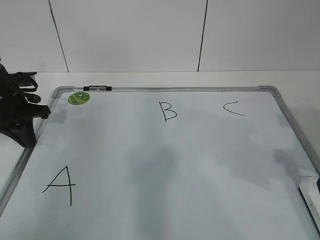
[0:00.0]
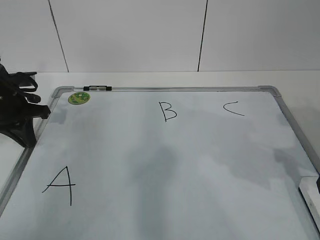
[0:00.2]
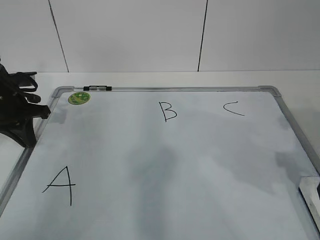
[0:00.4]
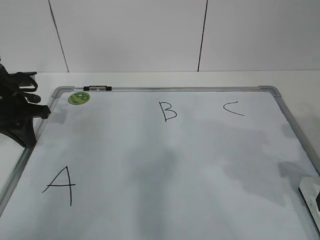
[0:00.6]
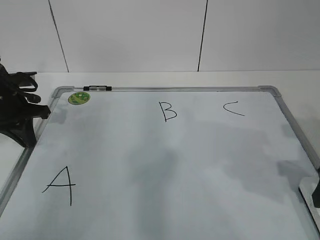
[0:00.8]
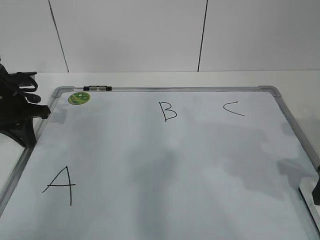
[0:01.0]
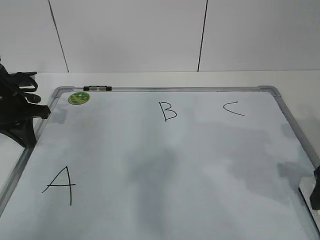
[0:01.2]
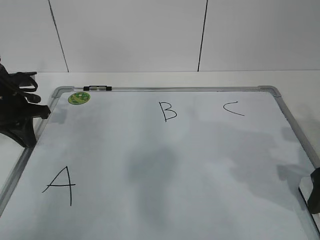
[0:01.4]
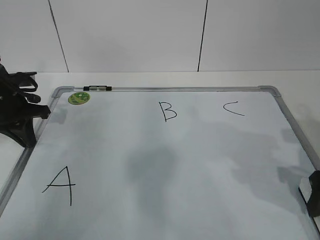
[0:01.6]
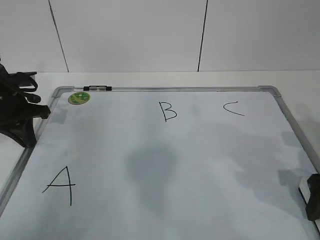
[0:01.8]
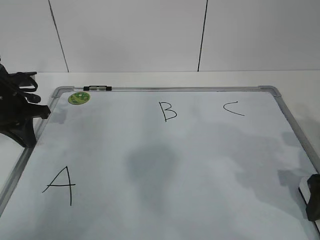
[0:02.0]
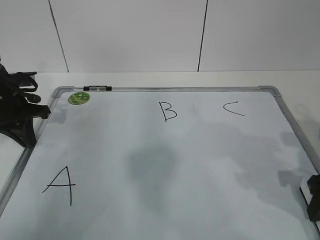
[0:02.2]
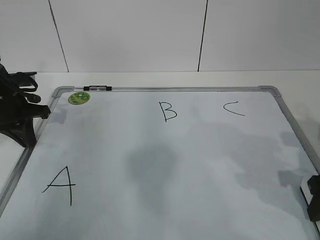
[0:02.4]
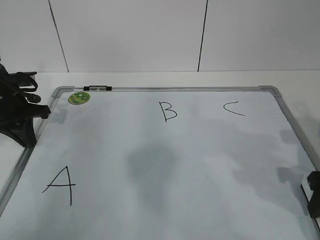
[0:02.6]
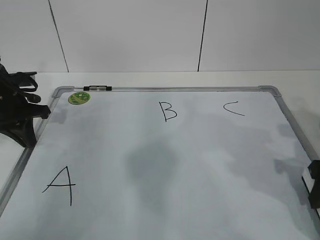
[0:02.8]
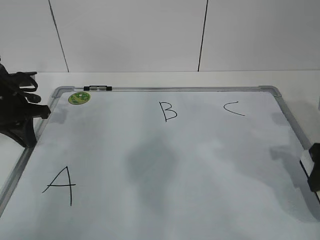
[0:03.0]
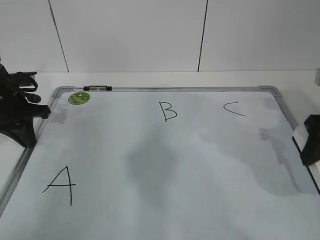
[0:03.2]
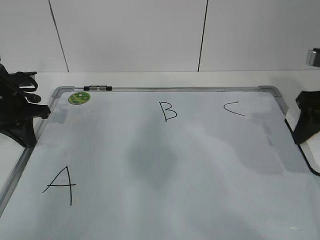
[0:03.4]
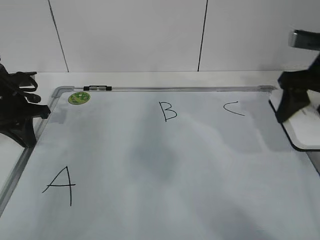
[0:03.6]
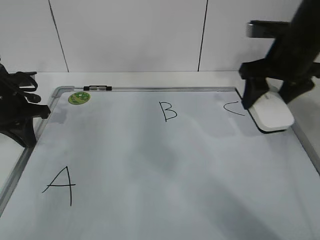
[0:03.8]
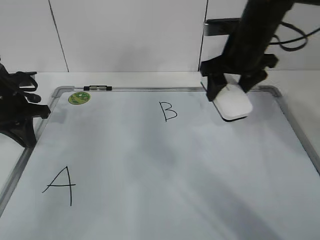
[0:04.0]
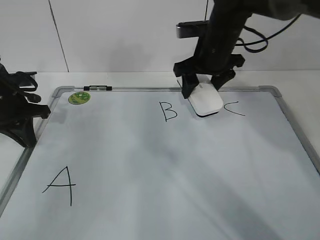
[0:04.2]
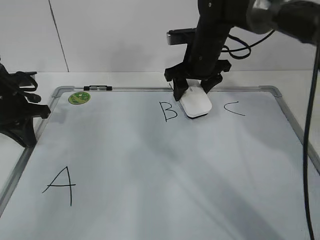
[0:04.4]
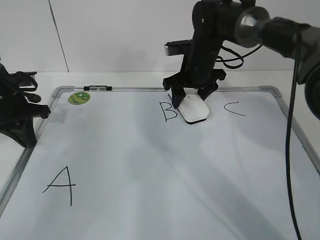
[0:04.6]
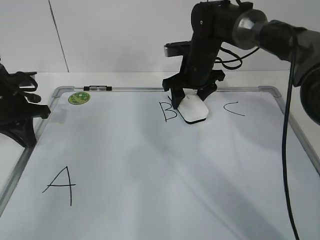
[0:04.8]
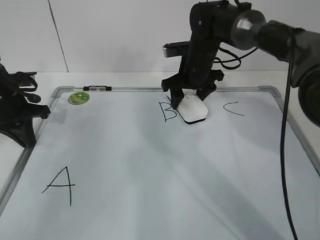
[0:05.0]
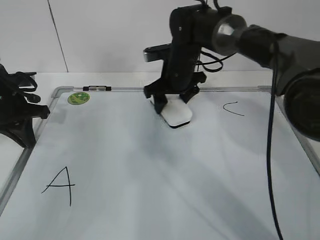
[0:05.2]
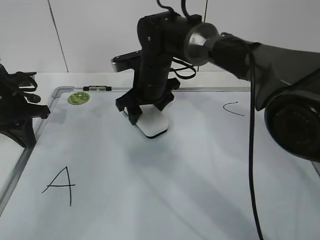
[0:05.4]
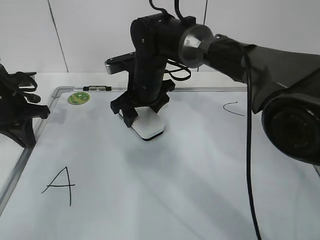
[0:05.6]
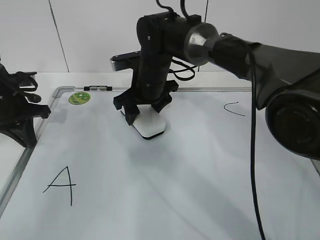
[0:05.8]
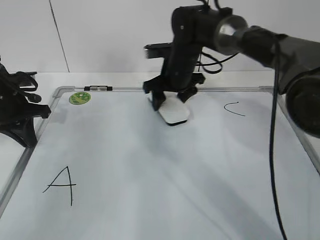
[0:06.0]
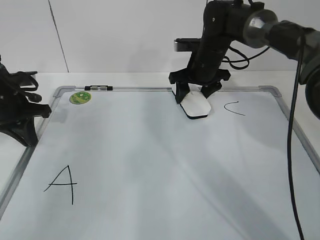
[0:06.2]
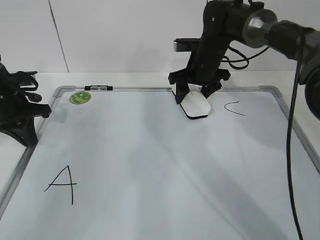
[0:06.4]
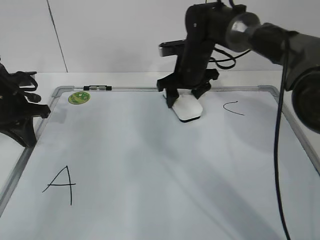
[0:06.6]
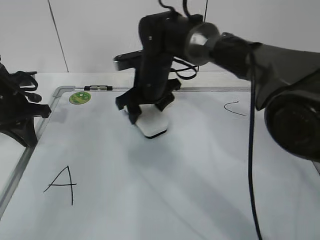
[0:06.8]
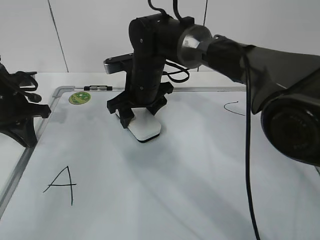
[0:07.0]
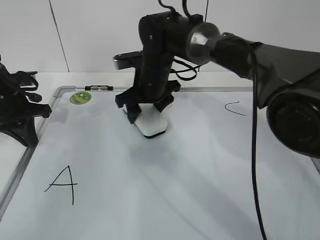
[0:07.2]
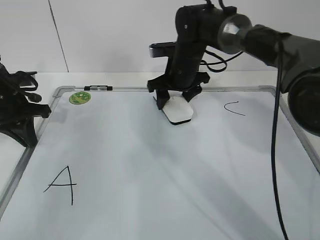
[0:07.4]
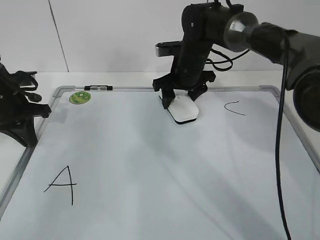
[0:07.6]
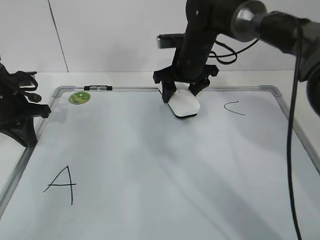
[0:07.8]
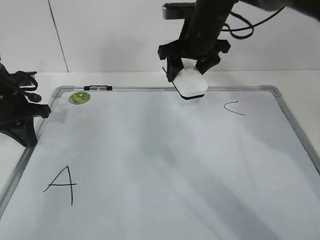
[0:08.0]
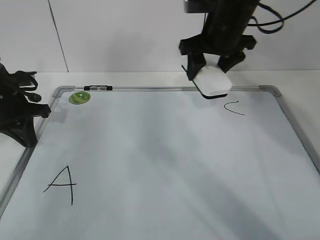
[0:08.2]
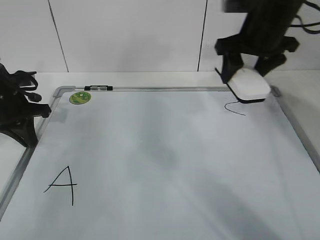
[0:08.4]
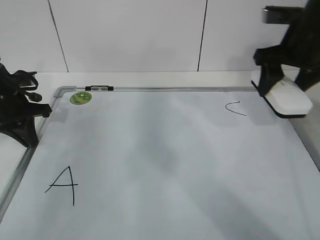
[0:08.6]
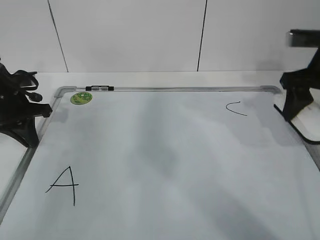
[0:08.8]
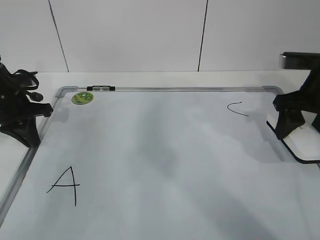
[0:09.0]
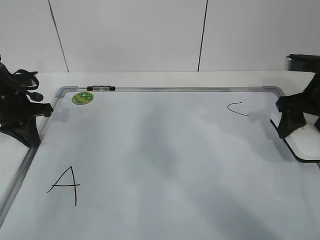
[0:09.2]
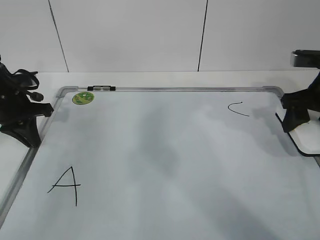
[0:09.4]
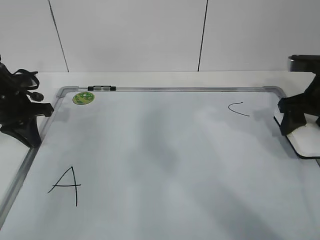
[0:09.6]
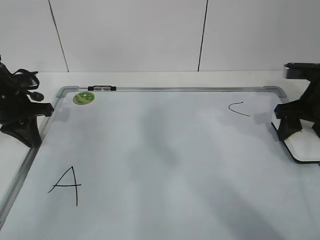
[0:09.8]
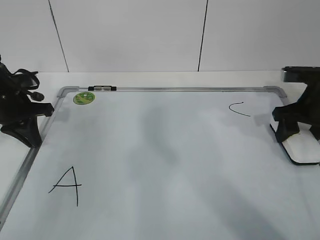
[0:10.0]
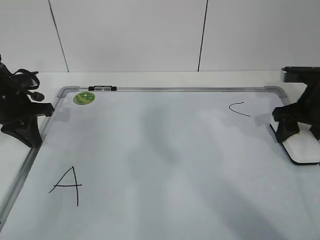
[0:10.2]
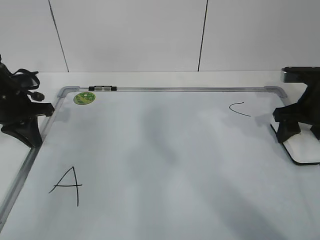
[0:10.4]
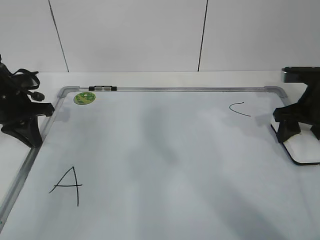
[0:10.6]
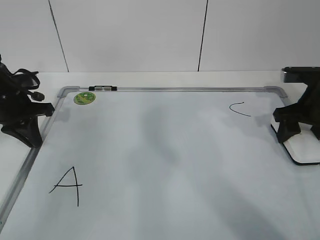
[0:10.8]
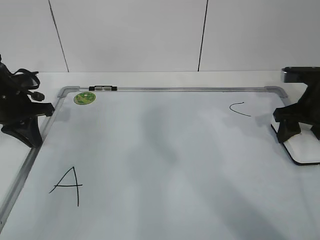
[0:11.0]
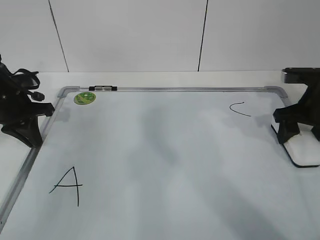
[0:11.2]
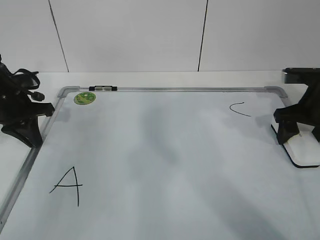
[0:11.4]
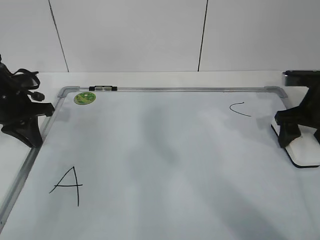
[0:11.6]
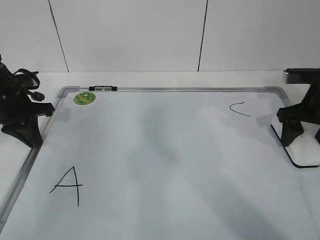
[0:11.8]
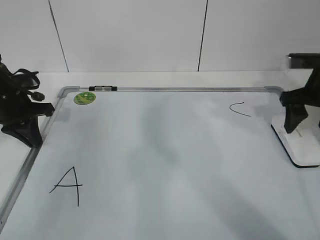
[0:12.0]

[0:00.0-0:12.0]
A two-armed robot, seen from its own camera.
Task of the whole recording: pick up the eraser on the blackboard and erase the letter "B".
Step, 0:00.8 to 0:05.0: Erase the letter B with your right hand.
Step, 0:05.2 to 0:08.0: Put down the eraser with your right hand.
0:00.0 to 0:01.6: There are only small adjustments of the grippers.
0:01.6 to 0:03.0: The right gripper closes its fingers.
0:03.0 to 0:04.4: The right gripper travels forward and to the left by about 30 cm.
0:06.0 to 0:07.6: The right gripper goes left and right, some 15 cm each way, reversing 2 times.
0:07.6 to 0:09.0: The right gripper moves to the right and backward, about 25 cm.
0:09.0 to 0:10.4: The right gripper is displaced downward by approximately 5 cm.
0:10.4 to 0:12.0: The right gripper opens up.

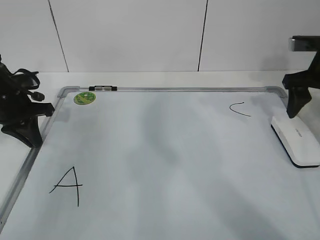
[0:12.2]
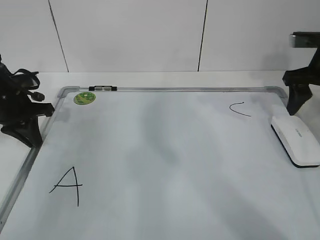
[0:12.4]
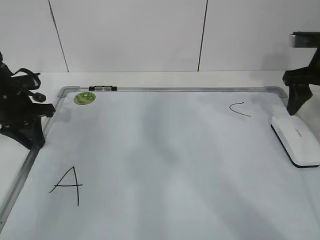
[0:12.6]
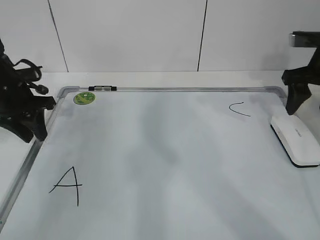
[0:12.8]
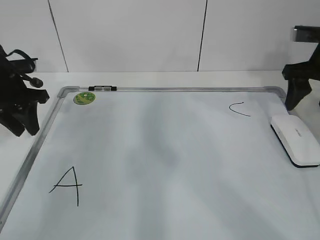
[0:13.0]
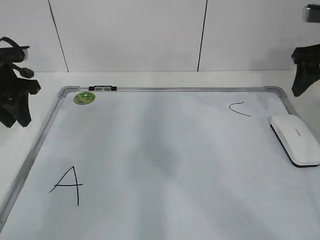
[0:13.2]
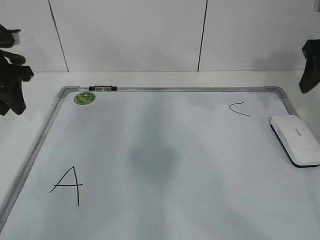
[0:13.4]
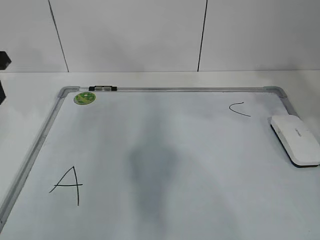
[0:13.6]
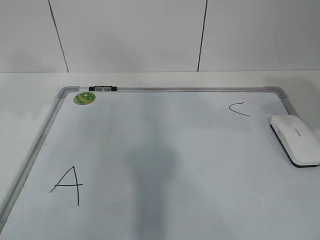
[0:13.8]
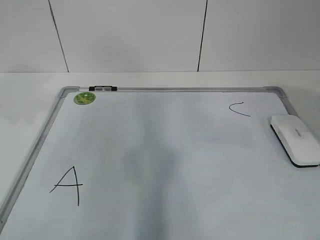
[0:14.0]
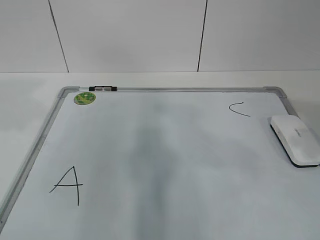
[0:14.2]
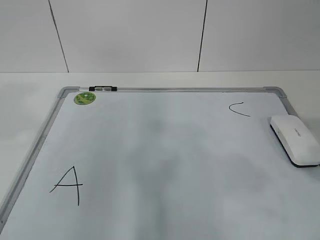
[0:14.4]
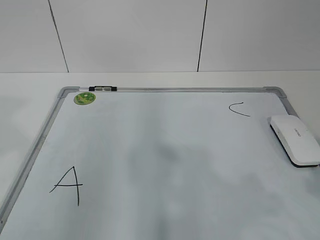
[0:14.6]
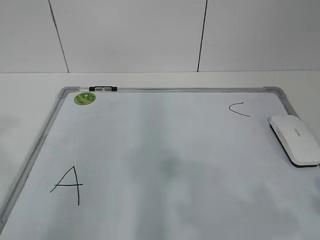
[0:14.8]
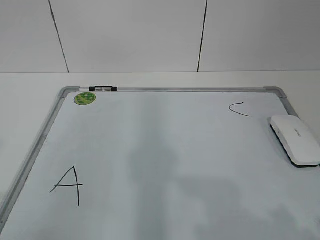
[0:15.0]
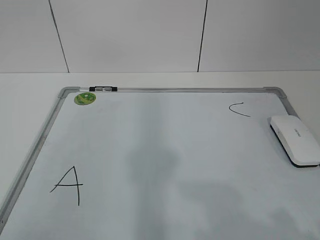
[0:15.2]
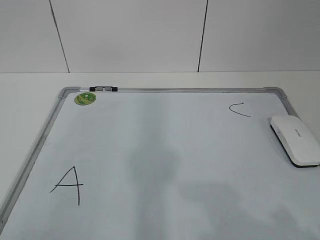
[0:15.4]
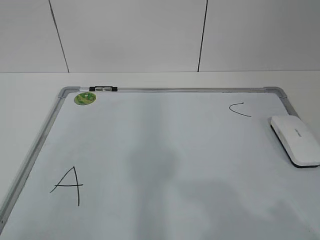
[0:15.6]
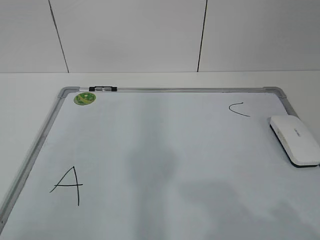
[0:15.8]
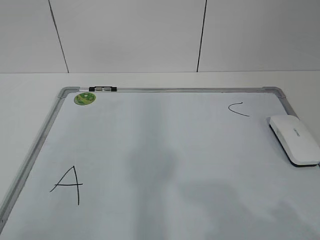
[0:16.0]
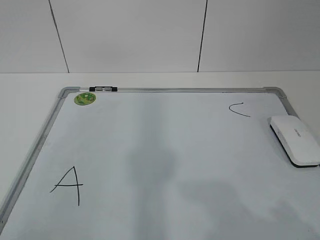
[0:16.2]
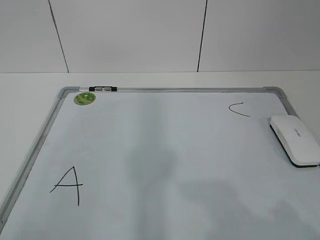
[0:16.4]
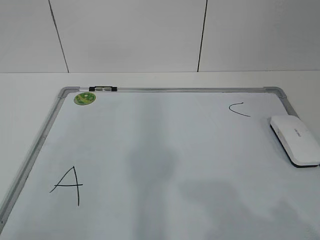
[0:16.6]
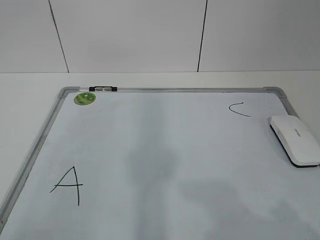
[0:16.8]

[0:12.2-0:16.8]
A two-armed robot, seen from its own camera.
Task of the whole recording: pick up the eraser on the blackboard and erase the letter "B".
0:12.2 to 0:13.8: The left gripper heads upward and backward, covering roughly 20 cm, and opens its fingers. Meanwhile the right gripper travels backward and upward by roughly 15 cm.
0:13.8 to 0:15.2: The grippers both shift backward by some 25 cm.
